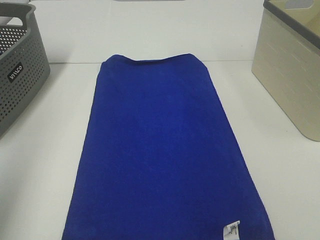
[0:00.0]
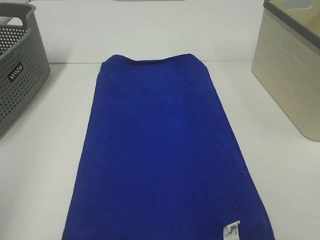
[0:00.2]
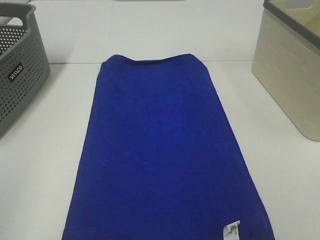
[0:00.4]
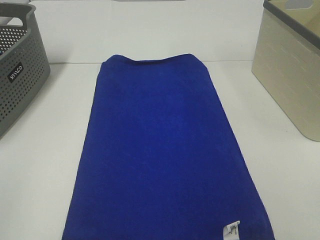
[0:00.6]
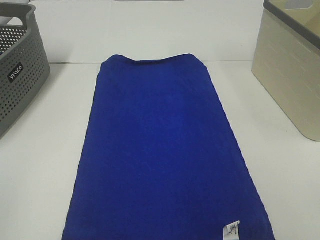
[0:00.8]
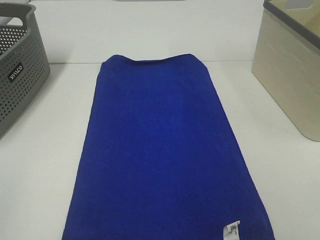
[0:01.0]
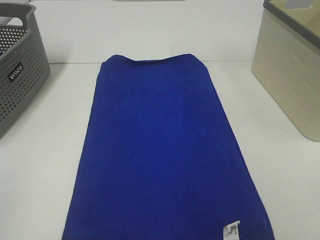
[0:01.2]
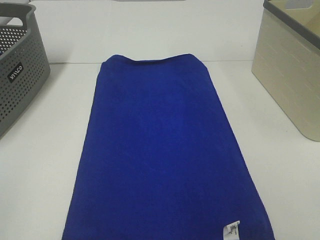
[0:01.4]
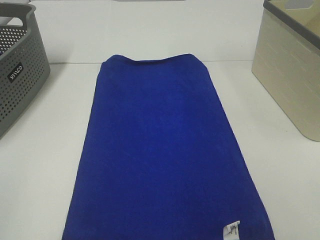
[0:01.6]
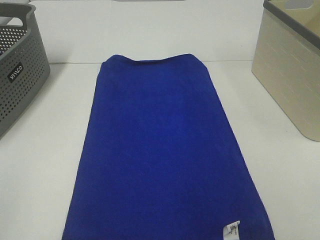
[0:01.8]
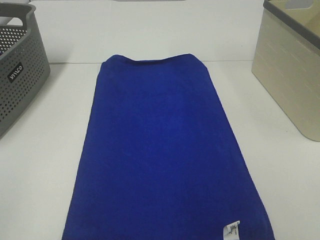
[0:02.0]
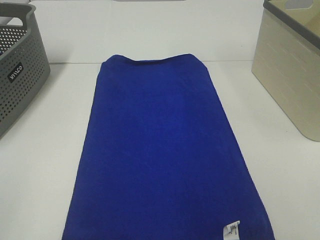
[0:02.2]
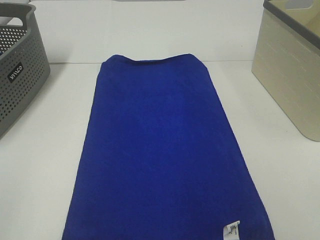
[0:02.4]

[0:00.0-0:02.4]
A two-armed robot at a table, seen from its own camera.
Task of the whole recording: Remove the towel and place it.
0:00.0 to 0:01.2: The left gripper is displaced backward and downward by some 15 cm.
0:01.2 to 0:02.4: Both grippers stay about where they are.
